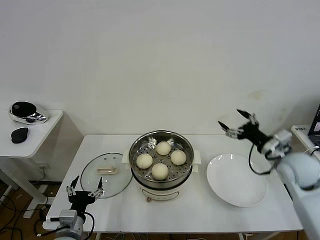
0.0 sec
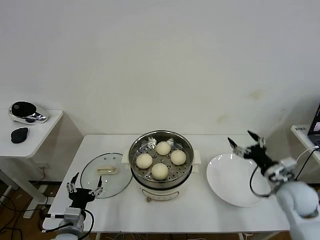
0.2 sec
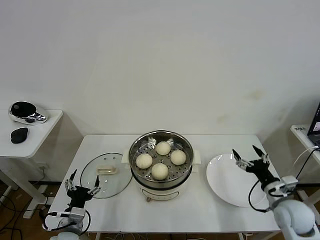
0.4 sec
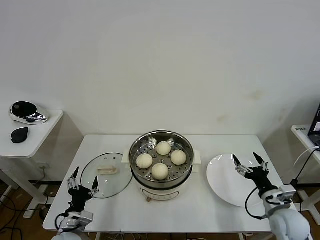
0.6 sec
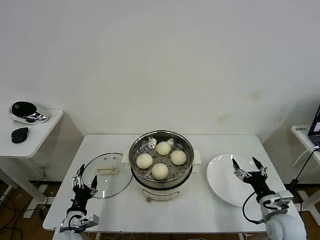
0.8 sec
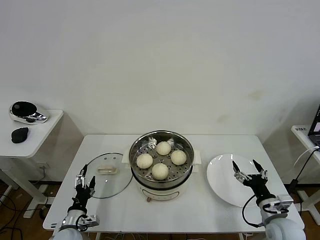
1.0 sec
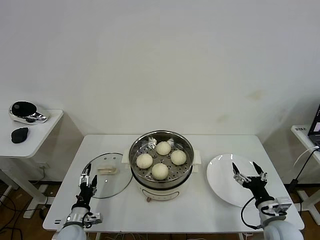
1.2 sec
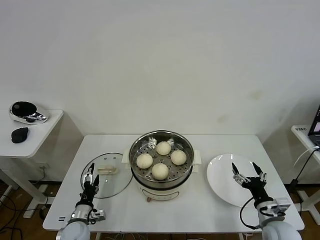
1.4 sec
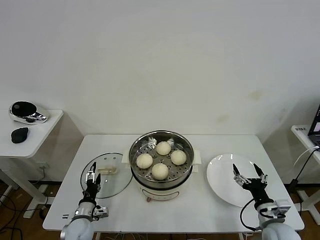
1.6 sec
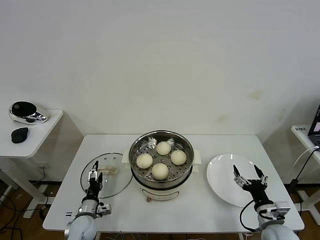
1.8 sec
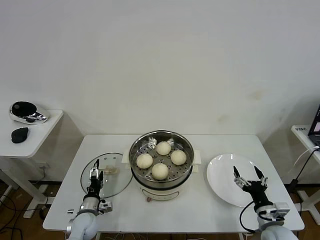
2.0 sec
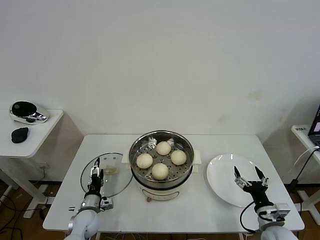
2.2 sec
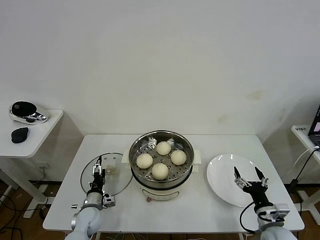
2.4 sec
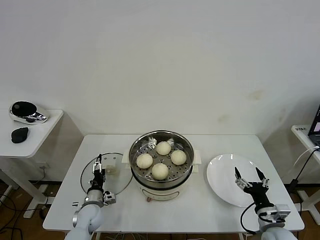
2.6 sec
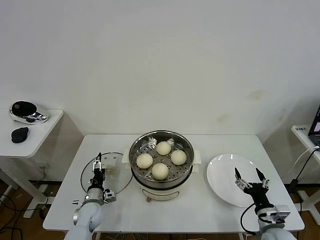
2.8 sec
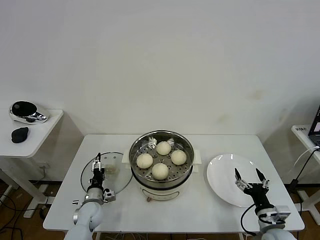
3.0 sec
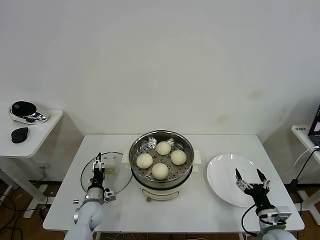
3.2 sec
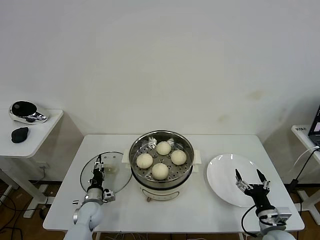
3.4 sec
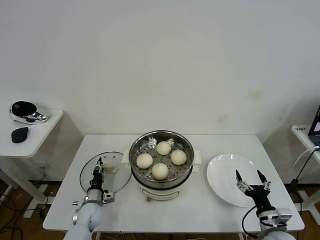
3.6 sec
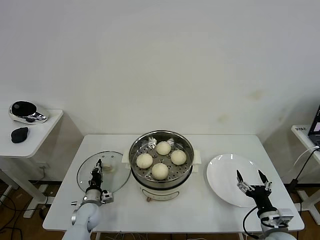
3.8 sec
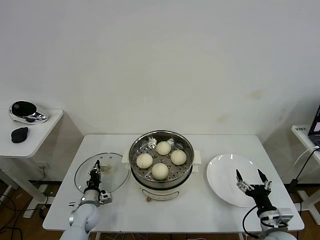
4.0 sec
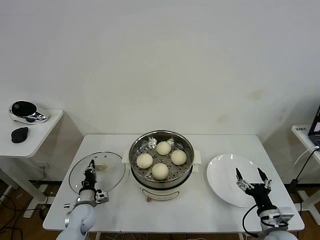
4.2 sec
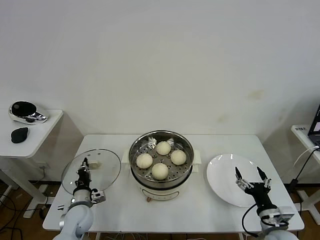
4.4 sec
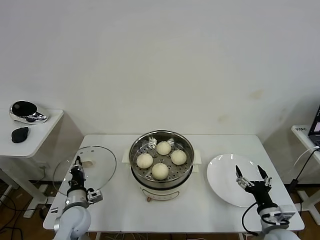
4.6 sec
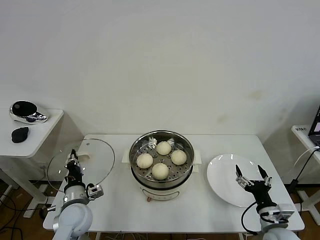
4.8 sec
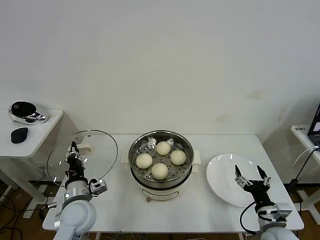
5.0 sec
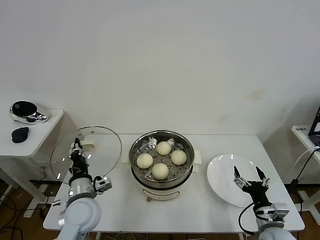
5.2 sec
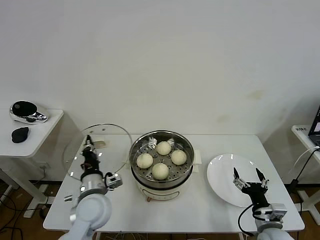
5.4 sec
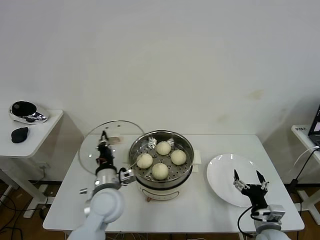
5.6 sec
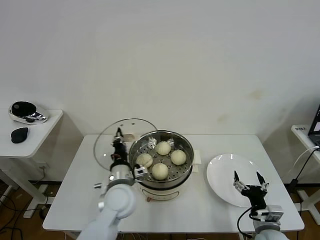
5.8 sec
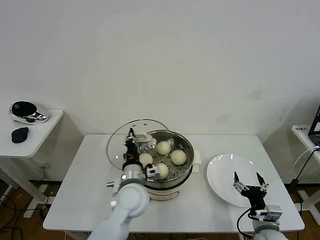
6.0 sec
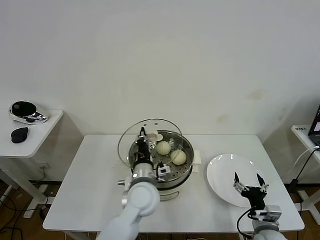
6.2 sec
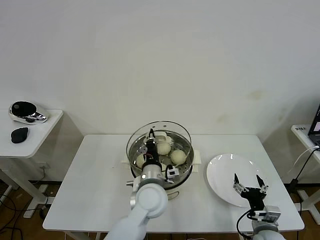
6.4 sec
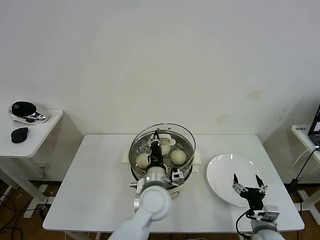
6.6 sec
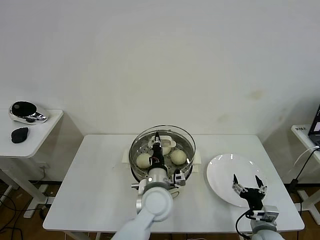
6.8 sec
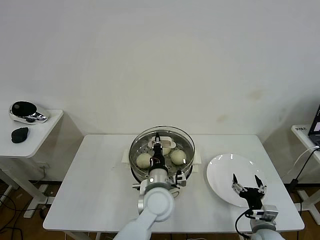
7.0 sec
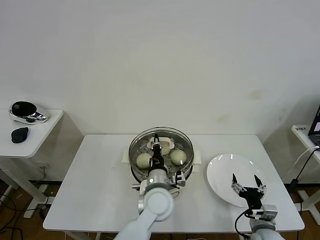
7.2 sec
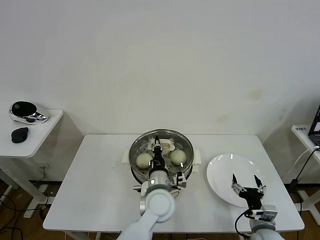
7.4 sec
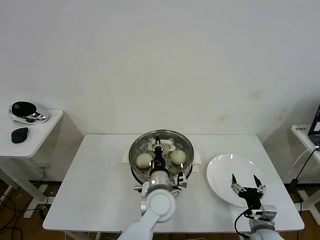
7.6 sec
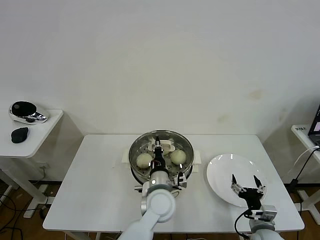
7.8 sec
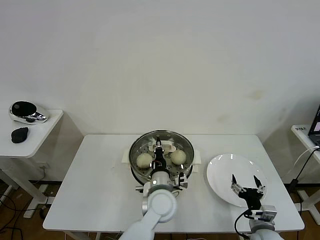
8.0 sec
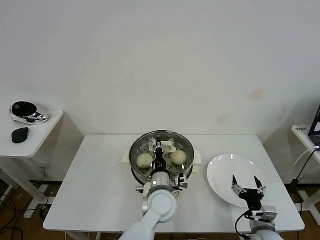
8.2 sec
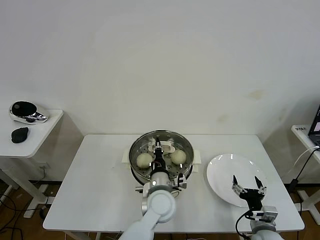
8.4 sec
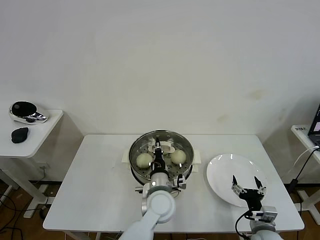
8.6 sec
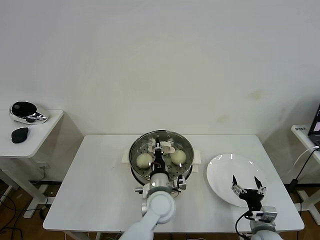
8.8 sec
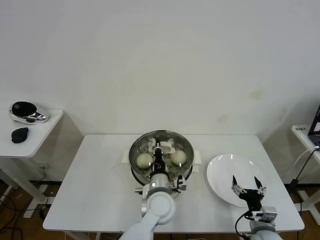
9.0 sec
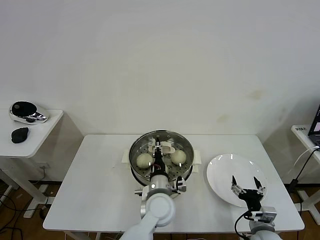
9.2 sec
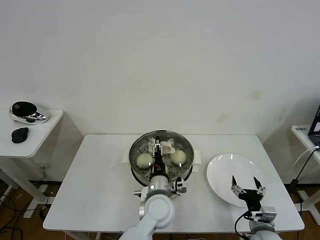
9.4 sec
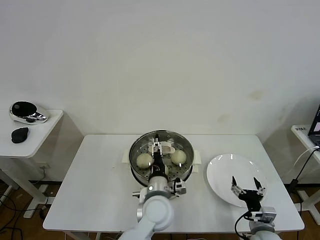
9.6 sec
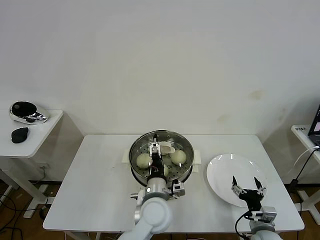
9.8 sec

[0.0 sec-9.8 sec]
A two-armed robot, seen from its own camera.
Step, 0.0 sec to 4.0 sec: Grasp the pot lid with left gripper.
Step, 4.2 sec to 9.2 sec: Place the pot lid on the steamer with left gripper.
0.0 sec to 1.4 sec: The left gripper moves downward and forward, roughly 15 cm; the right gripper heads downward and backward, covering some 20 cm.
1.4 sec to 2.8 sec: The left gripper heads forward, covering some 10 cm.
2.8 sec to 4.2 sec: The left gripper closes up.
4.2 sec to 5.6 sec: The left gripper moves upward and to the right, roughly 25 cm.
5.6 sec to 7.0 sec: The left gripper heads to the right, covering about 15 cm.
7.0 sec to 8.4 sec: The grippers stay close to where they were, moving slightly.
8.4 sec to 9.8 sec: The left gripper opens its fingers.

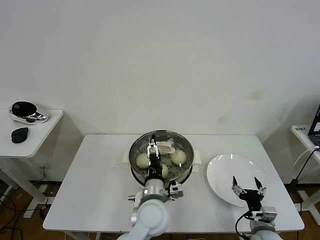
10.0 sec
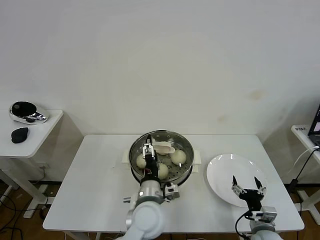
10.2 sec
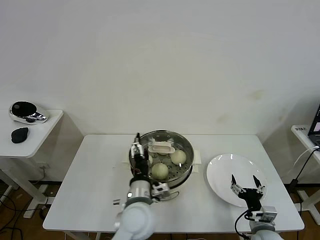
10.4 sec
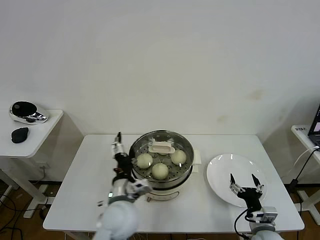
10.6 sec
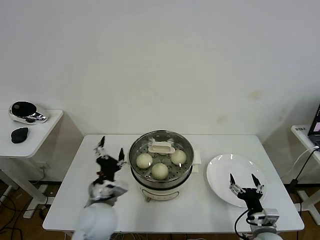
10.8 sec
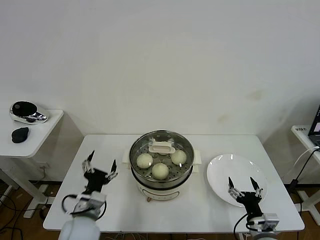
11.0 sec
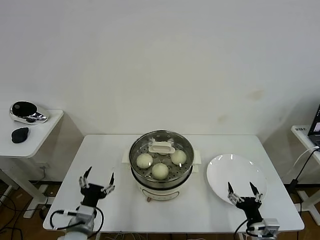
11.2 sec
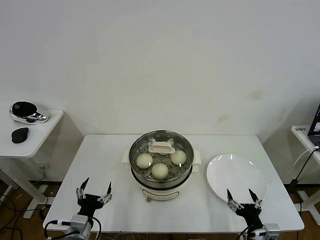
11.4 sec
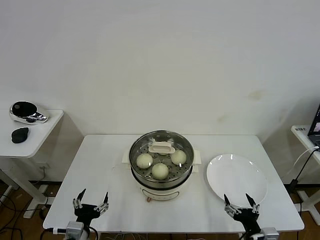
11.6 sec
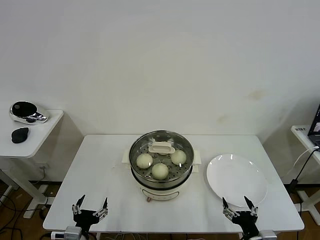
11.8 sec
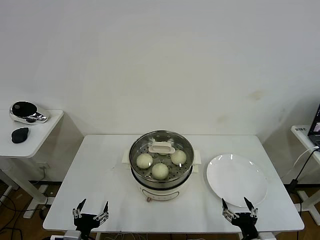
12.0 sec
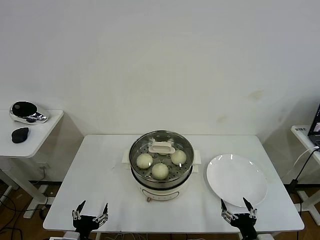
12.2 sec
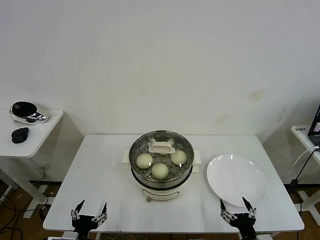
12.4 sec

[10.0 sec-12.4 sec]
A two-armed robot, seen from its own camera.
10.0 sec to 11.2 sec: The left gripper travels to the left by about 20 cm.
11.2 sec to 12.4 sec: The two grippers go about 5 cm backward.

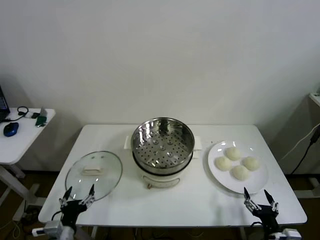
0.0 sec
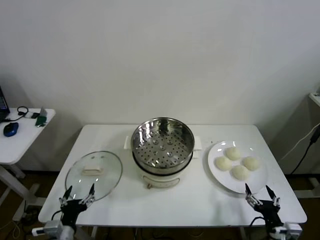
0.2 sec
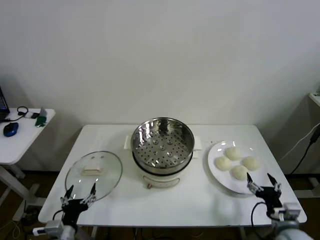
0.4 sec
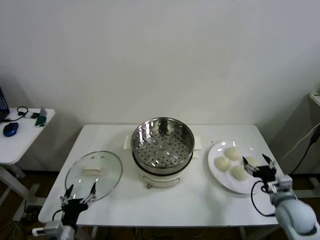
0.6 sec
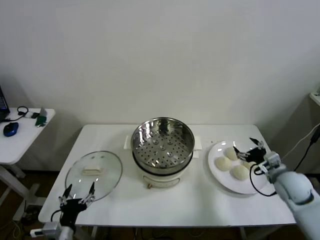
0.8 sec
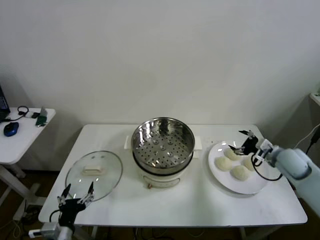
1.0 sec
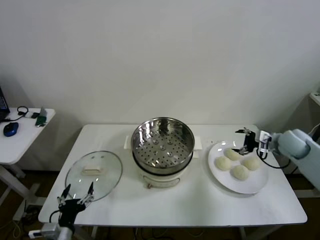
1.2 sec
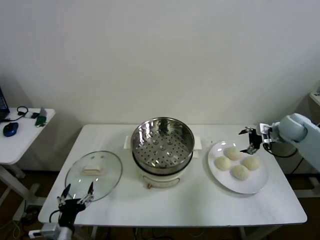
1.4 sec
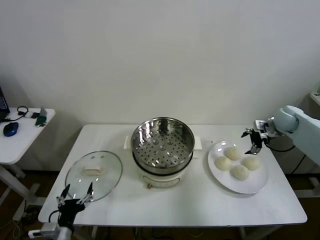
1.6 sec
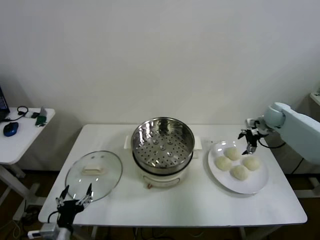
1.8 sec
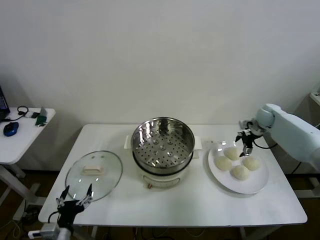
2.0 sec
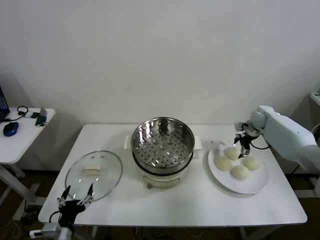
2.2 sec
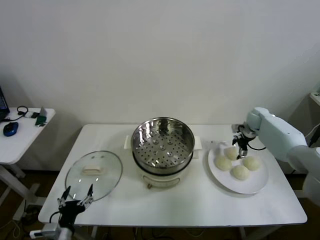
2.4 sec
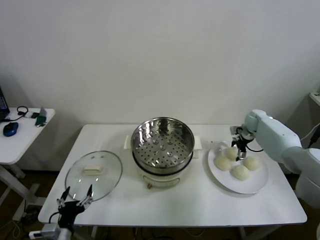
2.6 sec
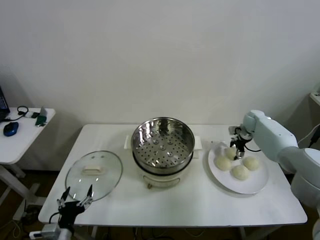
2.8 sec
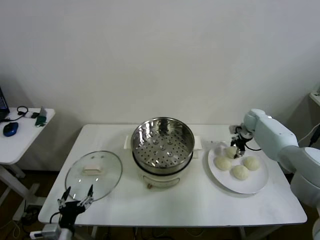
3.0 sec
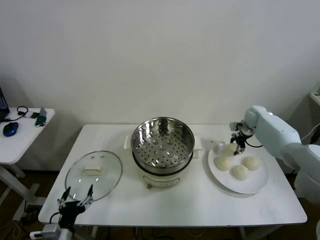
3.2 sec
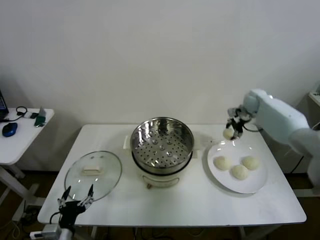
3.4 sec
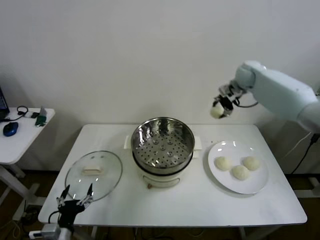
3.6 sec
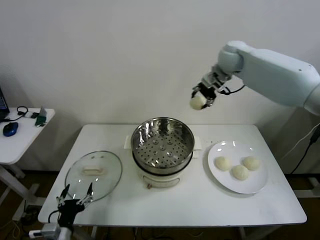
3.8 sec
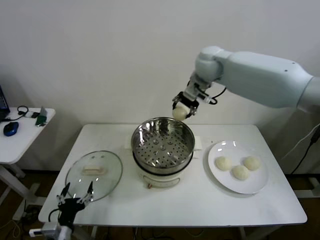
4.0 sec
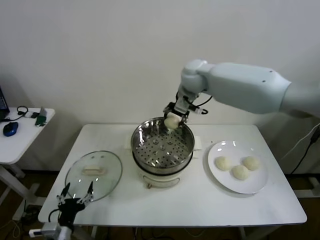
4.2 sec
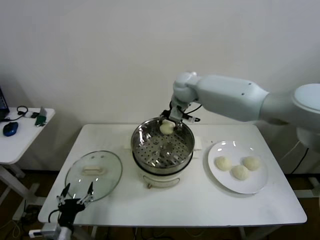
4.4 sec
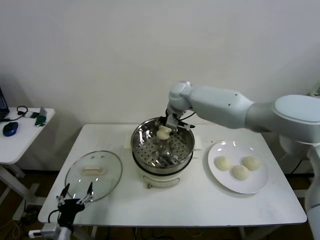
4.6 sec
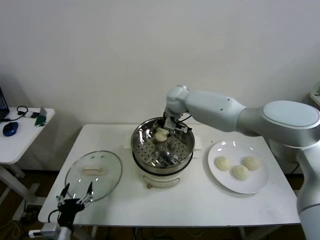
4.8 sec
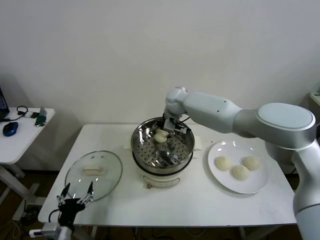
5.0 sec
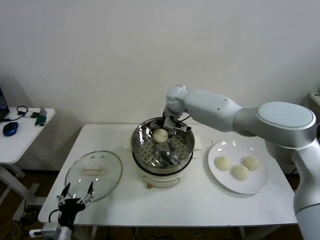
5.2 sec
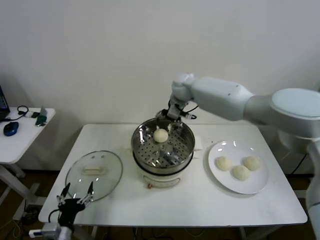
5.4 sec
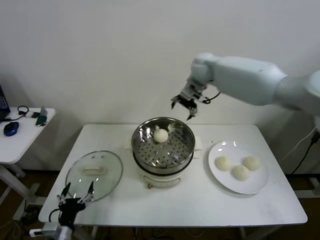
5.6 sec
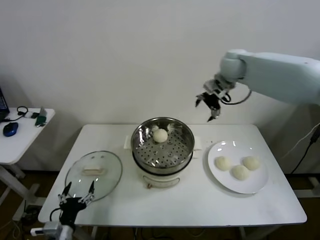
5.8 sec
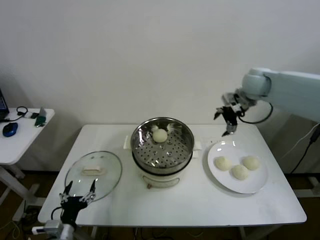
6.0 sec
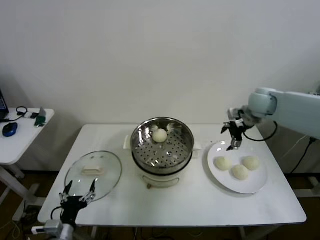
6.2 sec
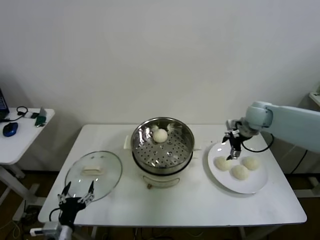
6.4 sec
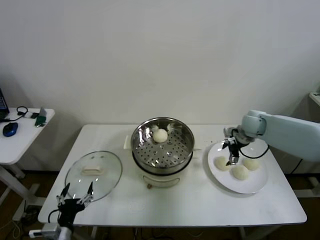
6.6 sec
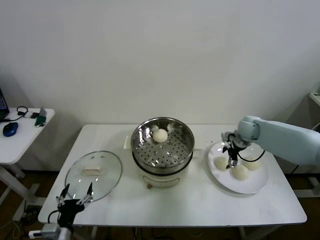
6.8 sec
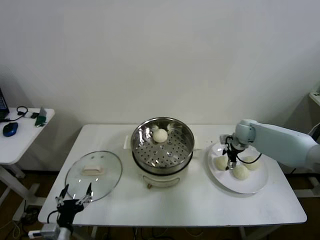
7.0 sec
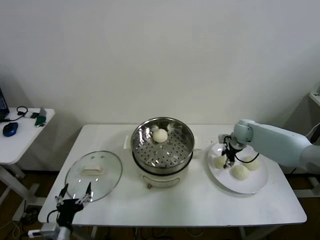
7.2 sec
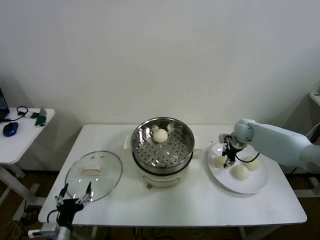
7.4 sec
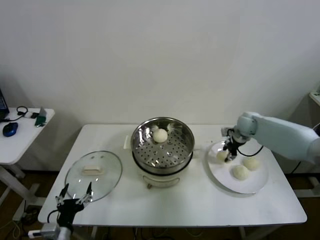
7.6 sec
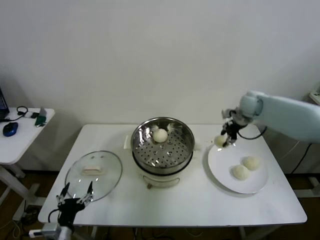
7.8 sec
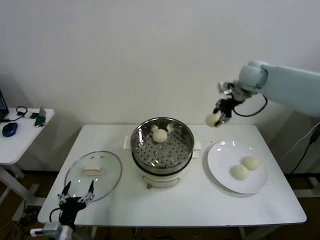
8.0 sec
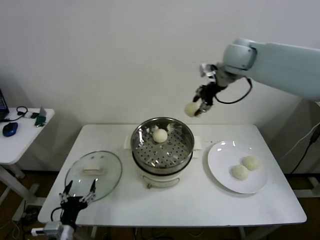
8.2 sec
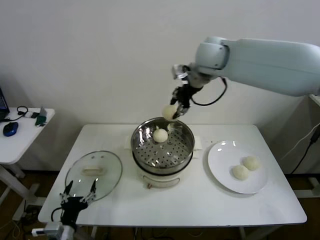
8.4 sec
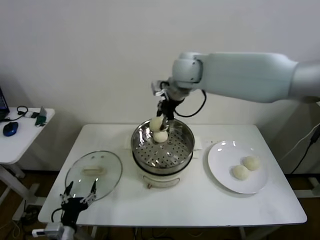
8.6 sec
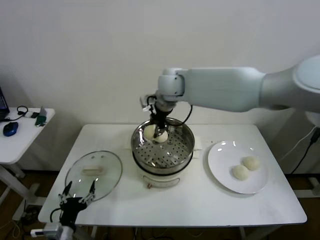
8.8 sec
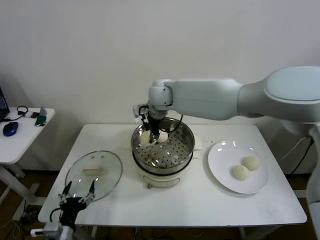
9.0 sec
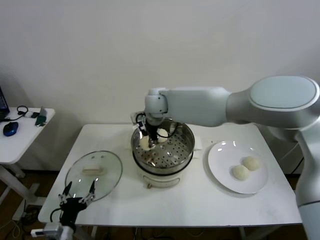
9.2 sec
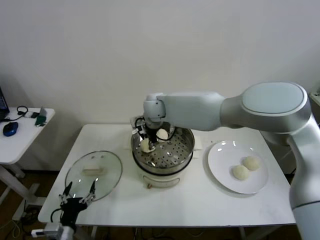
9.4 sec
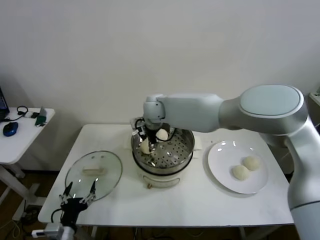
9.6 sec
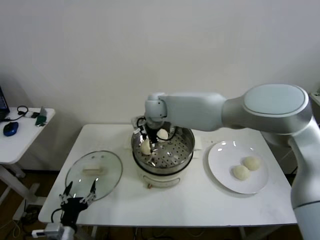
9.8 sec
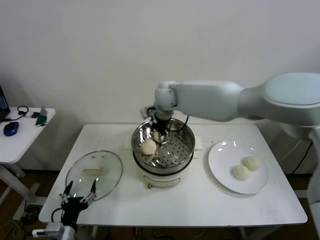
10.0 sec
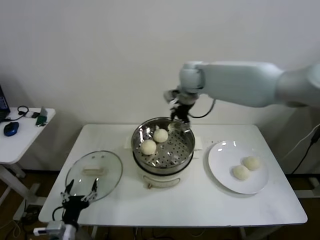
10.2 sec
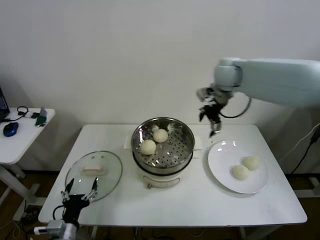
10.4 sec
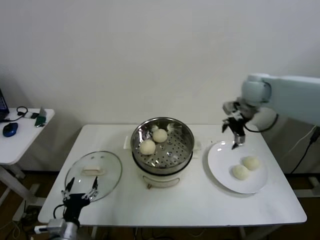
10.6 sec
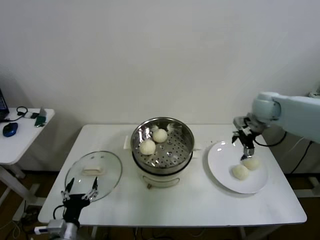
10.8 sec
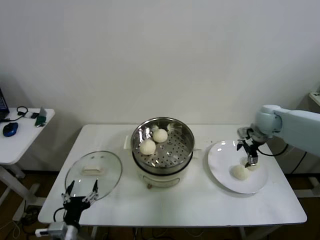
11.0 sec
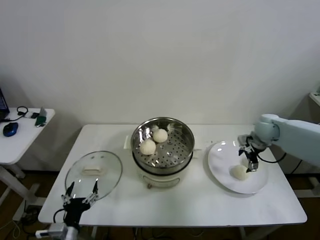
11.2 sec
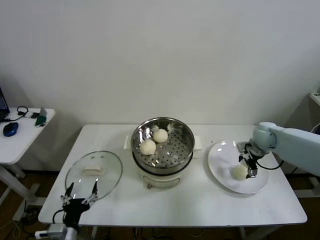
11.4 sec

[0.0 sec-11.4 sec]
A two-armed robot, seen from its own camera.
Step, 0.0 sec to 2.8 sec: Grasp the baozi in the plate with right gripper.
Step, 3.0 sec to 5.2 sec: Place the baozi on the steamer with right gripper.
Step, 5.4 sec to 7.2 sec: Grasp the baozi in the plate with right gripper.
Step, 7.4 sec to 9.8 sec: Place the baozi on the steamer with right gripper.
1.4 sec to 2.8 sec: The right gripper moves forward, downward and to the left, roughly 15 cm, and closes its fingers.
2.8 sec to 4.2 sec: The right gripper goes about 40 cm to the left and upward.
4.2 sec to 5.6 sec: The right gripper shifts some 10 cm to the right, moves roughly 10 cm downward and comes back, and opens up.
5.6 sec to 7.2 sec: The right gripper goes some 30 cm downward and to the right, and closes up.
7.2 sec to 8.6 sec: The right gripper is displaced to the left and upward by about 40 cm.
8.6 sec to 10.0 sec: The right gripper goes some 10 cm downward, and opens.
10.0 sec to 11.4 sec: The right gripper shifts approximately 40 cm to the right and downward.
